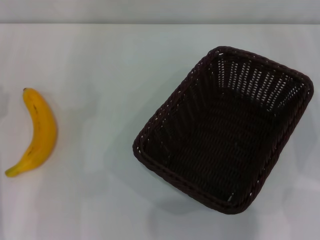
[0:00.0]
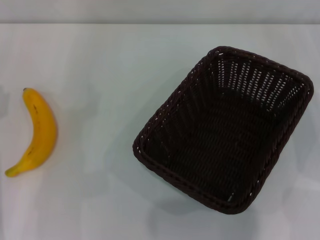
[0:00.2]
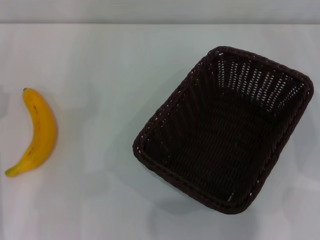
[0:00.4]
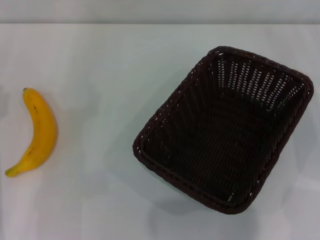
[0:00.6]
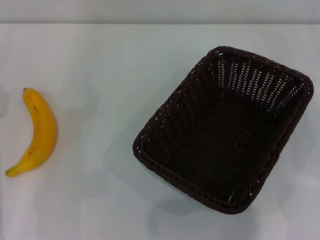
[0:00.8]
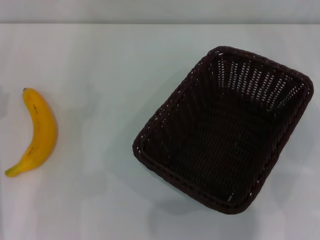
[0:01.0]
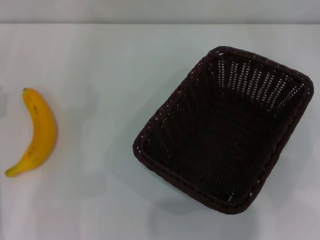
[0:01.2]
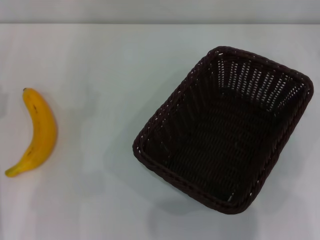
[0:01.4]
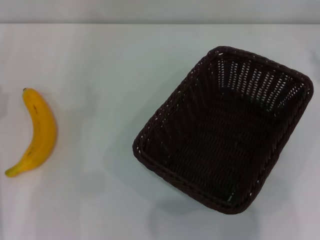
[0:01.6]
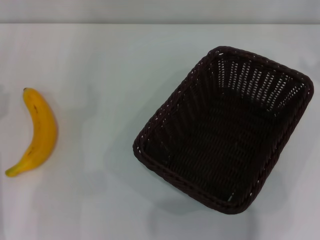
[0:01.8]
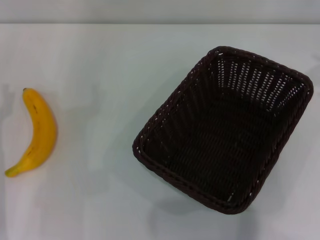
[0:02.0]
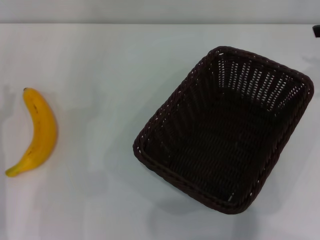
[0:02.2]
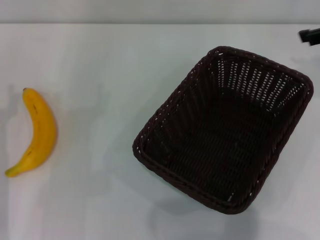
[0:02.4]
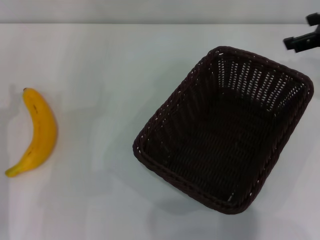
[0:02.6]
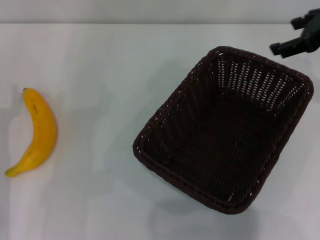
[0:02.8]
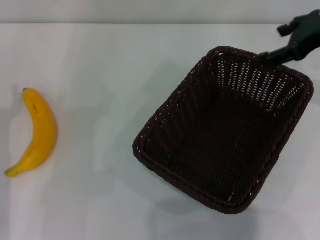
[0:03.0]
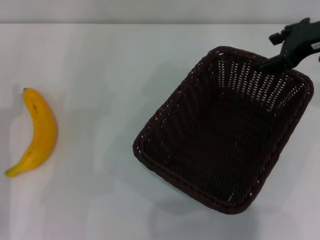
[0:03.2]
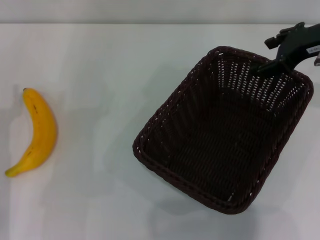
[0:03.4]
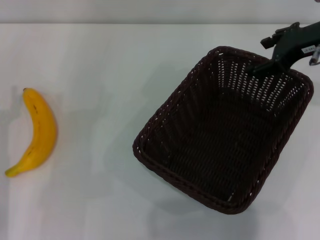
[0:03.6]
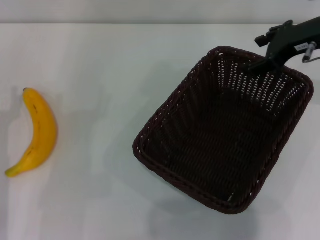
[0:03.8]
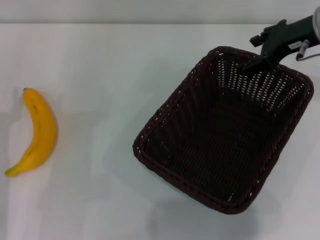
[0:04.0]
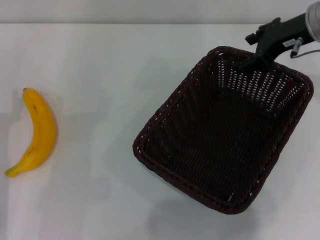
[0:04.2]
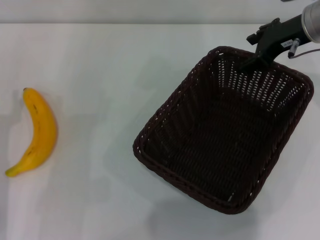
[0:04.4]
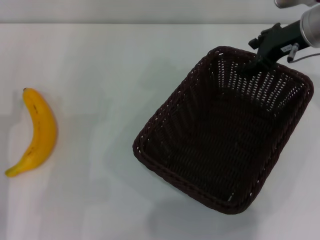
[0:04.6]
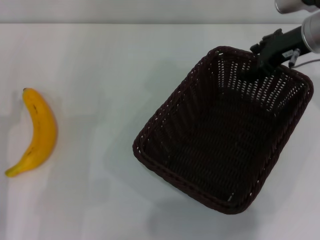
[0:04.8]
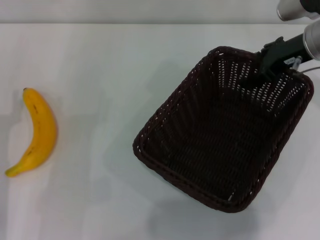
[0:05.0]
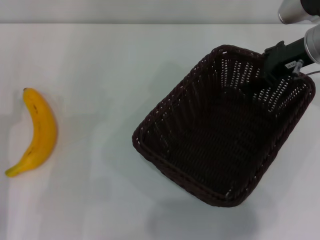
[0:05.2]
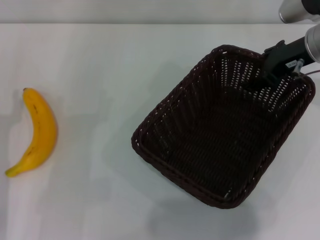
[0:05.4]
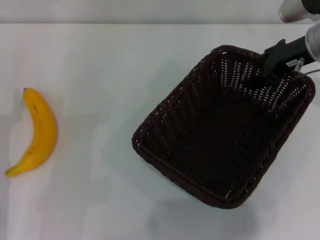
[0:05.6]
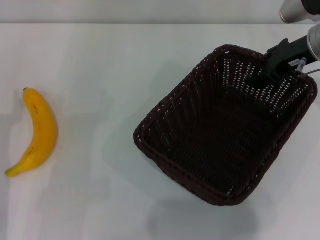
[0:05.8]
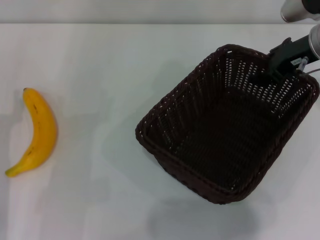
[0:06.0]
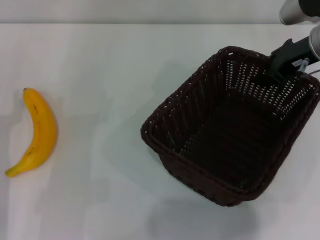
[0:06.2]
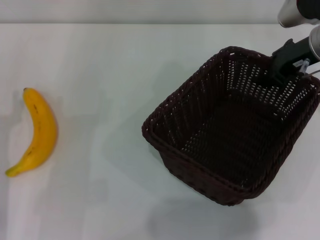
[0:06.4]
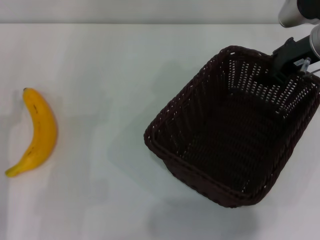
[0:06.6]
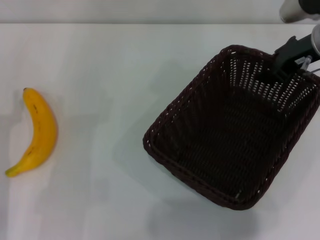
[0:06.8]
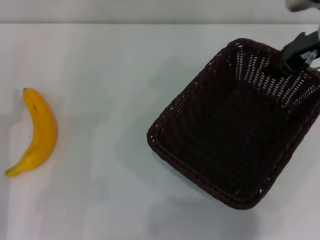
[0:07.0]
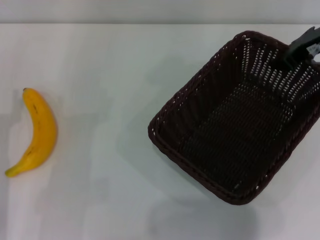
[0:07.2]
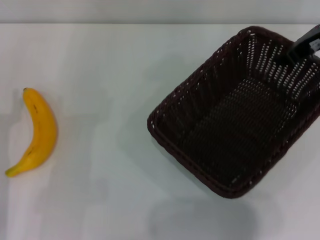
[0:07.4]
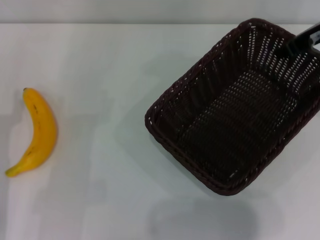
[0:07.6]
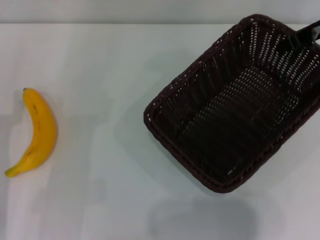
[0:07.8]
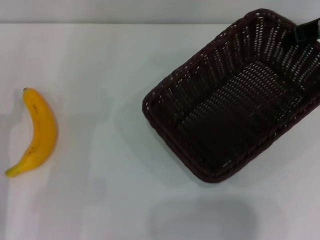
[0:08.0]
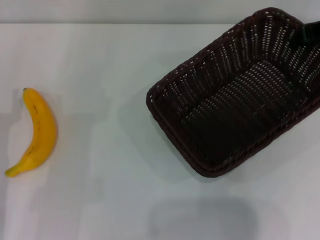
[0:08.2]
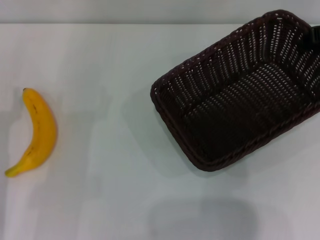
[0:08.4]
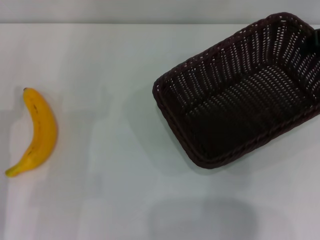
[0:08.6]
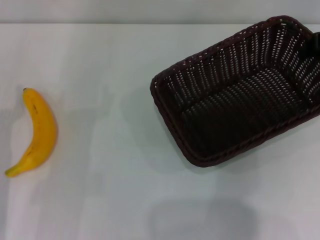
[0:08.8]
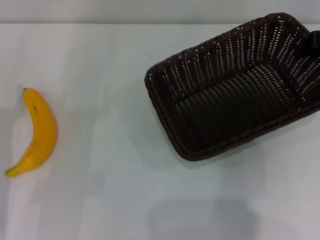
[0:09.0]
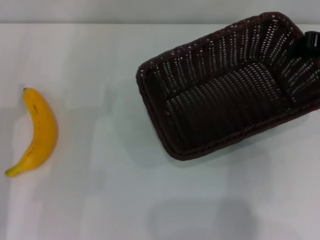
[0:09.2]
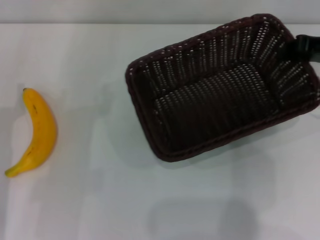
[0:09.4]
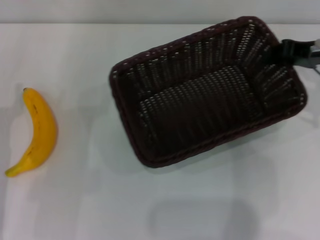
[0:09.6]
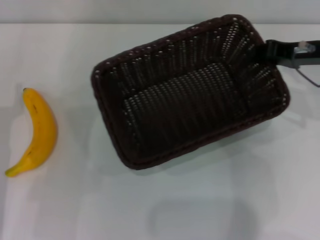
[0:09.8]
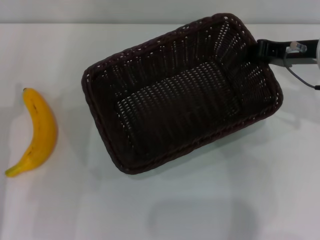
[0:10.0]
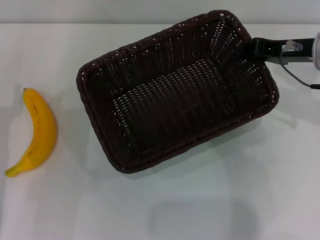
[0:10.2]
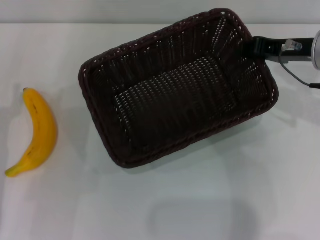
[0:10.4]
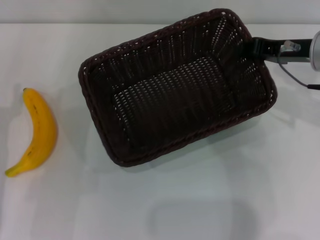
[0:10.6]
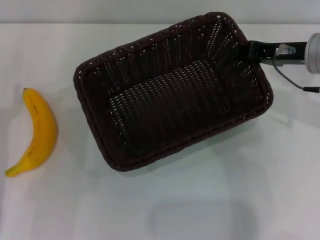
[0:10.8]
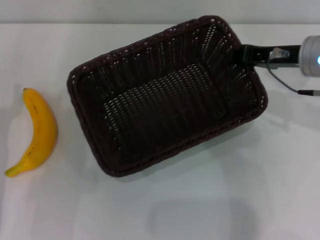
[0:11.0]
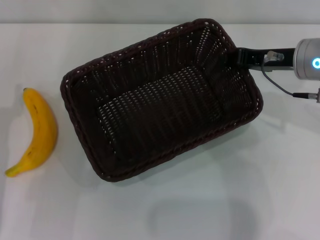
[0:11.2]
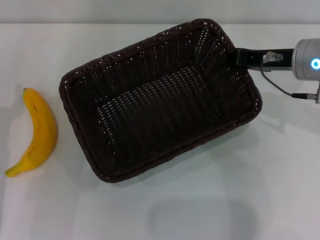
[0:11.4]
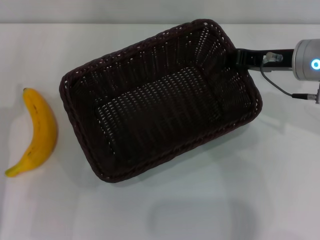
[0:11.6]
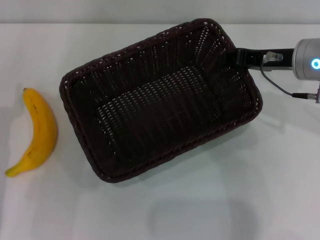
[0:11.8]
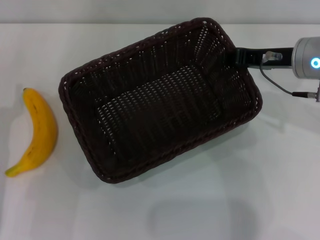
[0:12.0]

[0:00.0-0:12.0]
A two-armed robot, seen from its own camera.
Step, 0:00.0 to 0:07.0: Pick up the dark basket with the right gripper.
0:01.6 to 0:03.0: The right gripper heads to the left, covering about 10 cm.
0:03.0 to 0:04.4: The right gripper moves roughly 5 cm.
0:04.4 to 0:06.0: The grippers make only small movements.
0:06.0 to 0:07.6: The right gripper shifts by some 5 cm, and closes its fingers.
0:07.6 to 0:09.0: The right gripper travels to the right by roughly 5 cm.
0:09.0 to 0:10.4: The right gripper is displaced to the left by some 5 cm.
0:10.4 to 0:12.0: There are only small adjustments of the grippers.

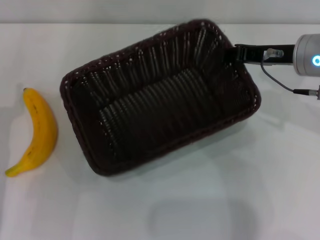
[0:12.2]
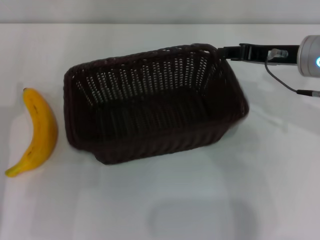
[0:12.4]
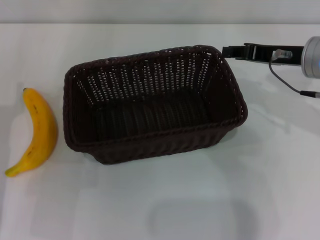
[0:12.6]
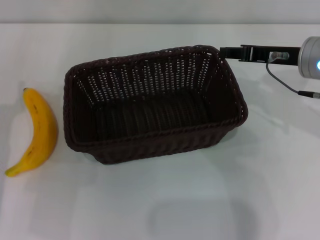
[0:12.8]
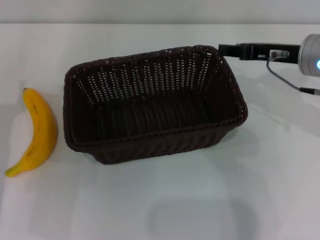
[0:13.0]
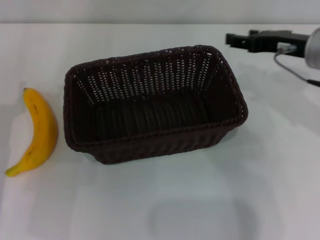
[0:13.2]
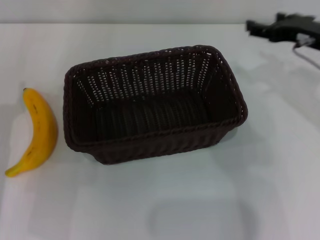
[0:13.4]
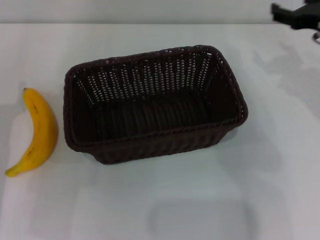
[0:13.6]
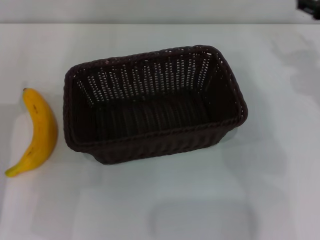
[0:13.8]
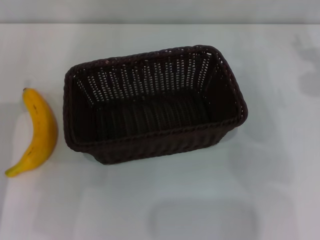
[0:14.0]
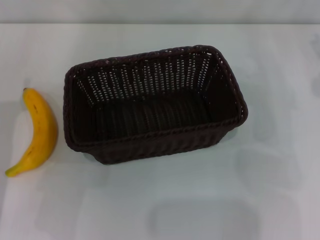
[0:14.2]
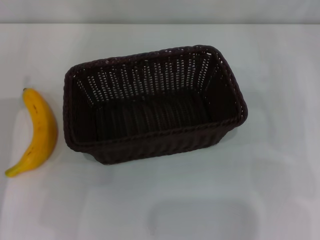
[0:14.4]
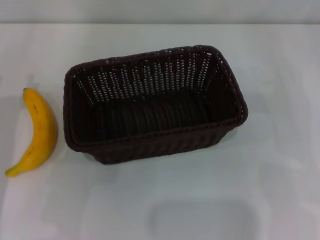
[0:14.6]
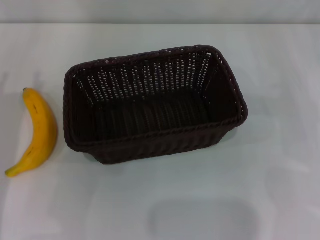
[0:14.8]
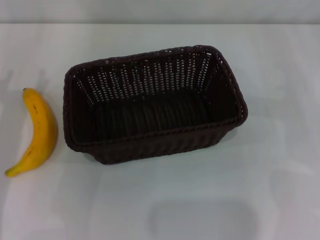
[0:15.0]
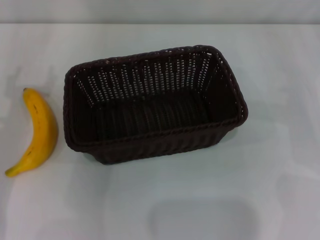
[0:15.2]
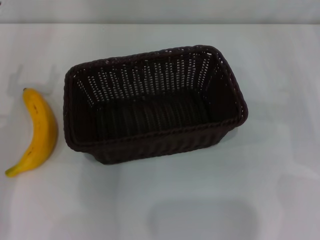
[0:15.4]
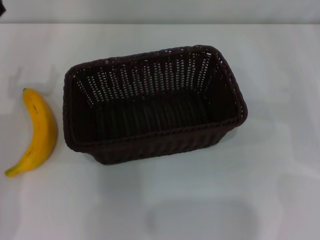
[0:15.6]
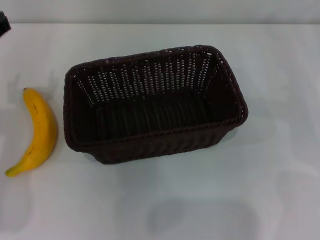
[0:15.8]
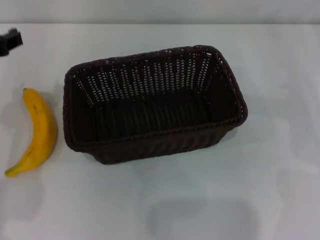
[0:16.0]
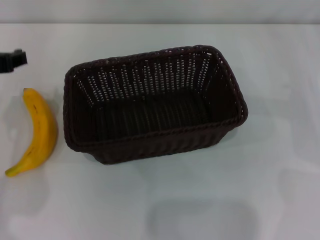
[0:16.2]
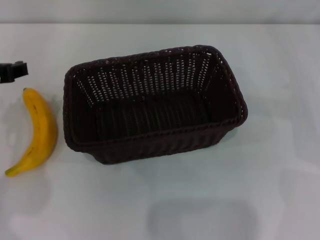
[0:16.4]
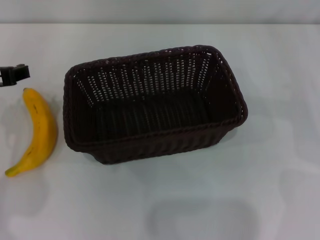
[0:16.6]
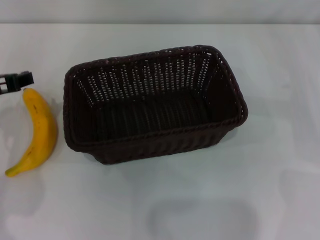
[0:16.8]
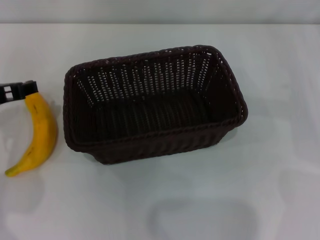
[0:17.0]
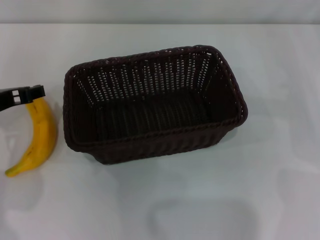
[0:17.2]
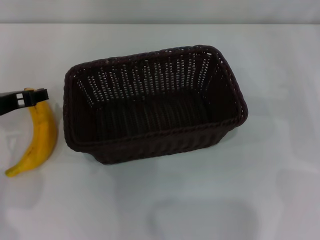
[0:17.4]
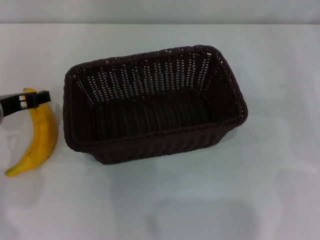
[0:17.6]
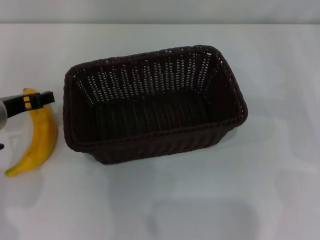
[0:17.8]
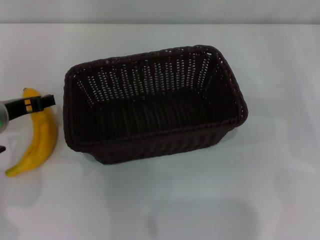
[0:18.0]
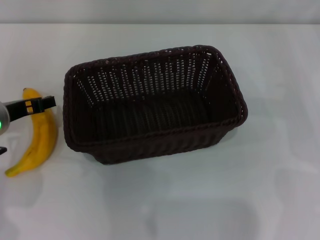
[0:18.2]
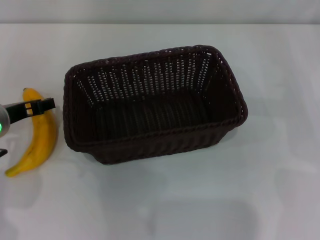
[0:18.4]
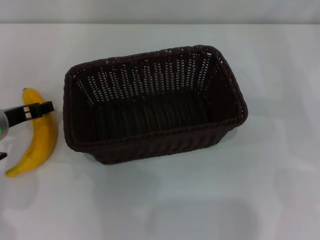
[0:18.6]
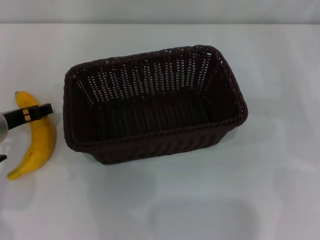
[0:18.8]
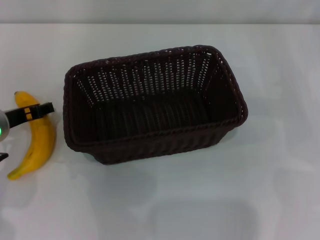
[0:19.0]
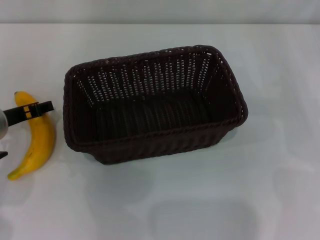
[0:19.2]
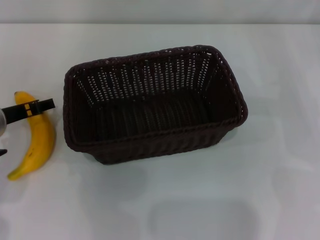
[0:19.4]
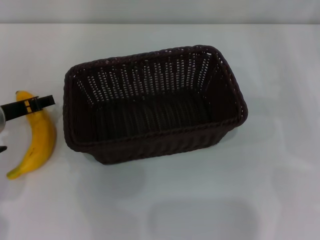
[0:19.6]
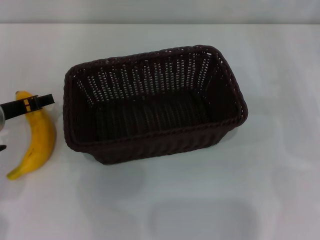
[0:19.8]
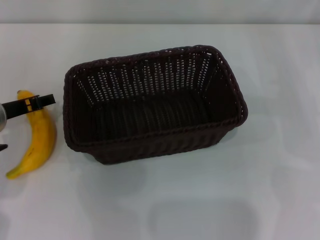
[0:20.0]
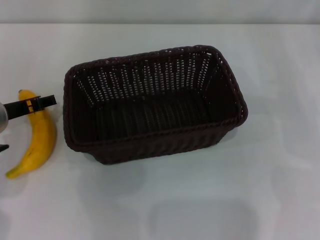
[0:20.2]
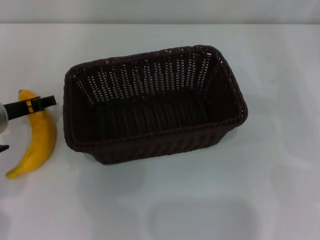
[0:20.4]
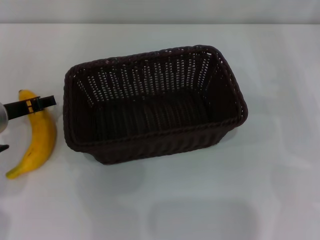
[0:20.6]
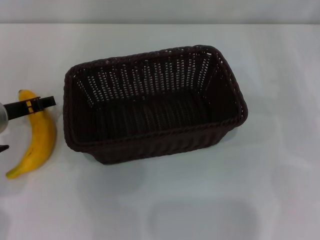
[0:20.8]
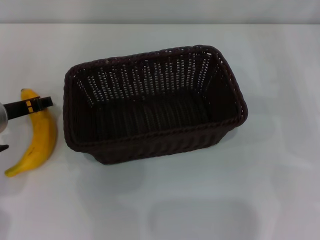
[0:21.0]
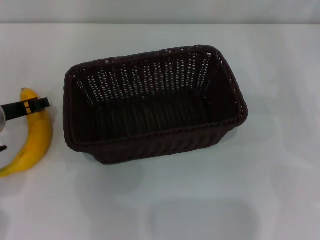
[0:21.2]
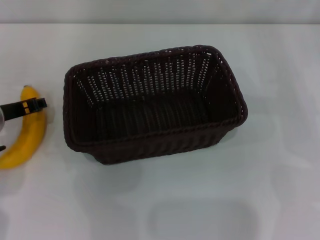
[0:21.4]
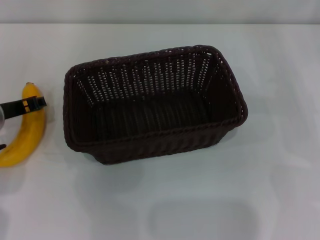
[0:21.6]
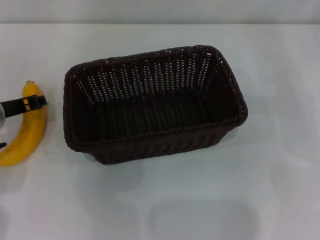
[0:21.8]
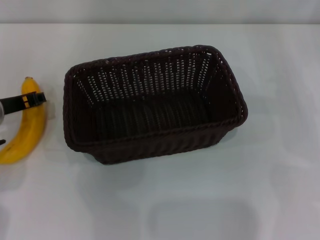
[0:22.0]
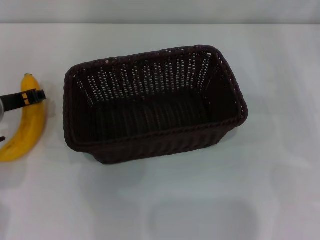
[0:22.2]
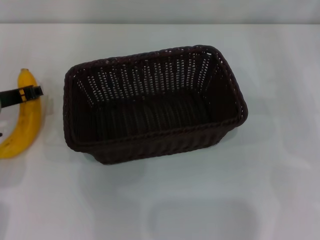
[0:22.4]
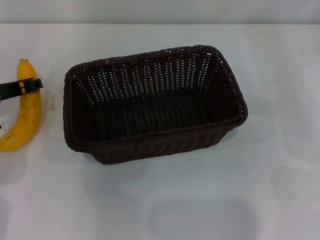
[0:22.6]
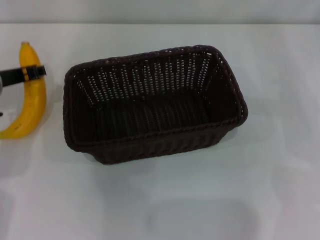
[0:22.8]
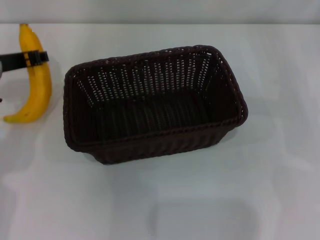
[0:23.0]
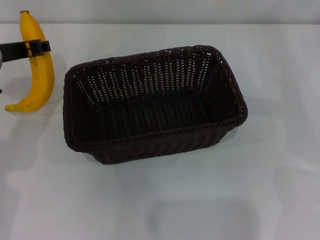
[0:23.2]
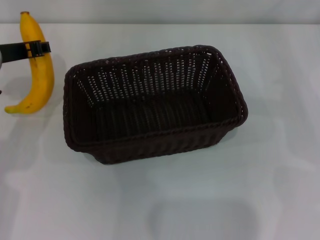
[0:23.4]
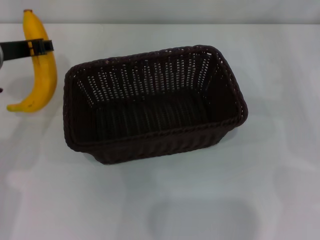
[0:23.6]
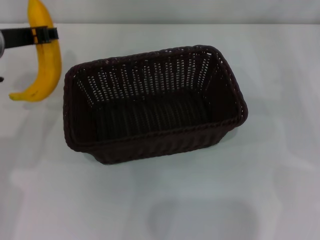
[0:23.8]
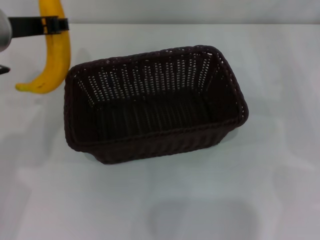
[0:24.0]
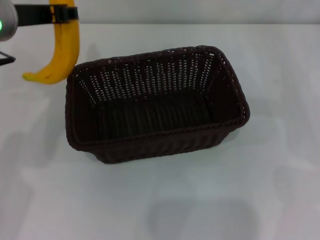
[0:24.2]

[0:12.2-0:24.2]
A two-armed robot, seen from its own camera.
Step, 0:13.0 to 0:22.6: Pick up the banana with the left gripper.
0:12.2 to 0:13.8: The right gripper heads to the right, covering some 10 cm, and opens.
0:13.8 to 0:15.2: The right gripper travels to the right and downward by roughly 10 cm.
0:15.2 to 0:16.6: The left gripper is displaced upward by some 5 cm.
0:16.6 to 0:18.2: The left gripper heads downward, covering about 10 cm.
0:18.2 to 0:19.8: The grippers make only small movements.
0:19.8 to 0:21.2: The two grippers keep their place.
0:21.2 to 0:22.6: The left gripper closes up.
0:22.6 to 0:24.2: The left gripper travels upward and to the right by about 15 cm.
